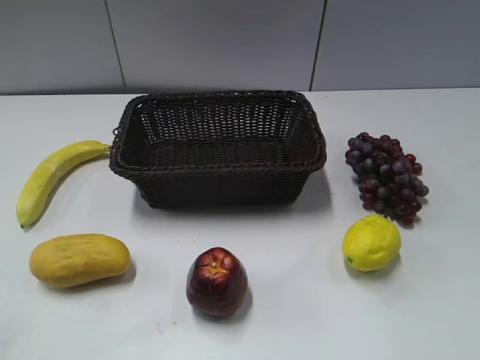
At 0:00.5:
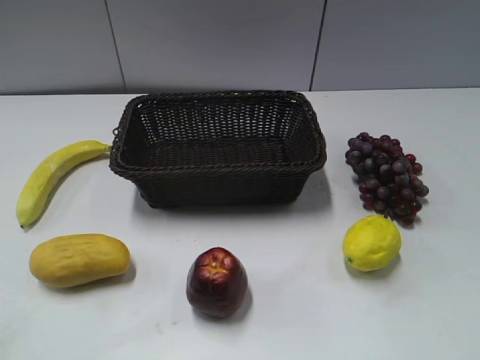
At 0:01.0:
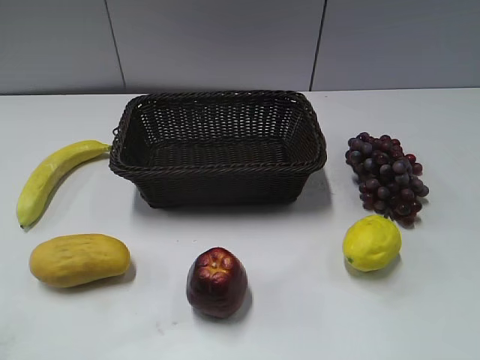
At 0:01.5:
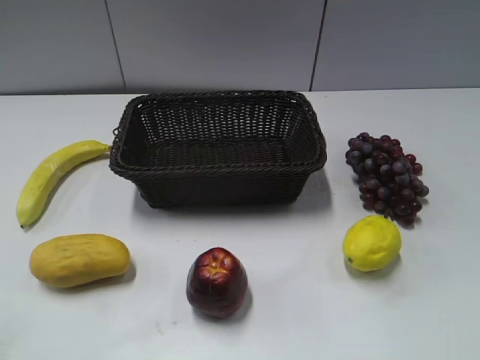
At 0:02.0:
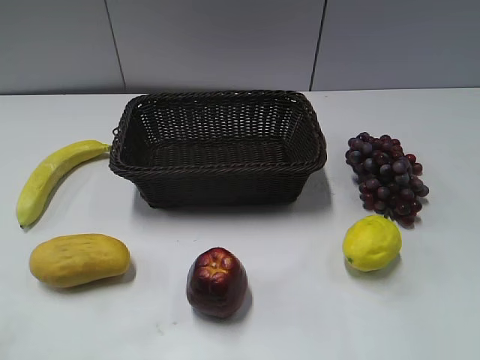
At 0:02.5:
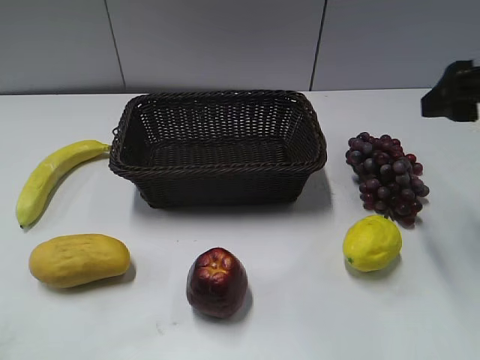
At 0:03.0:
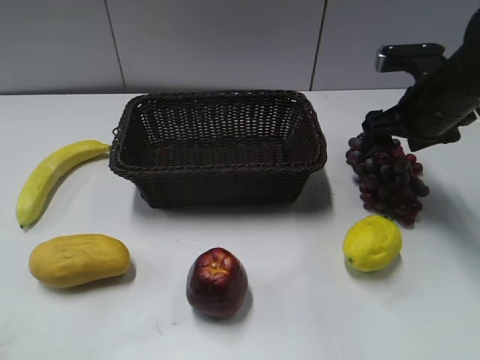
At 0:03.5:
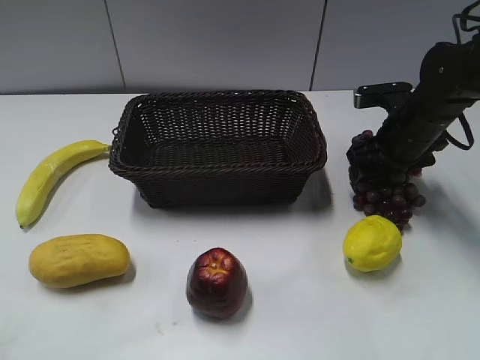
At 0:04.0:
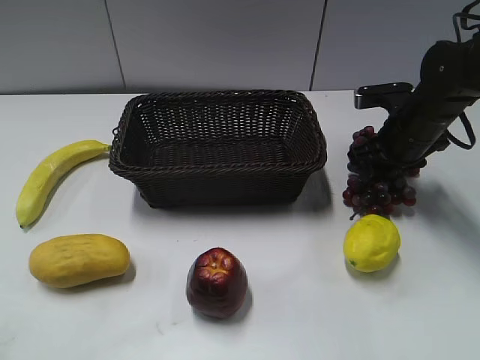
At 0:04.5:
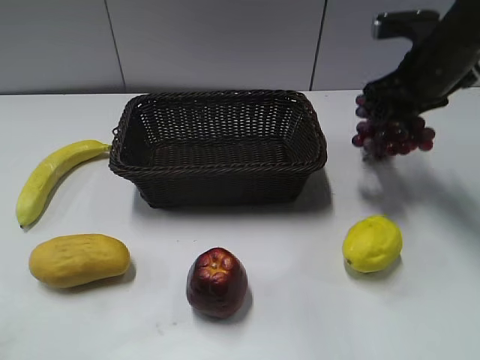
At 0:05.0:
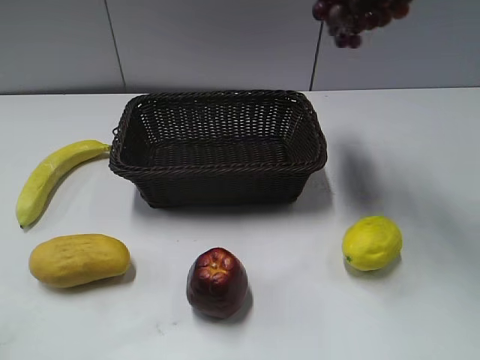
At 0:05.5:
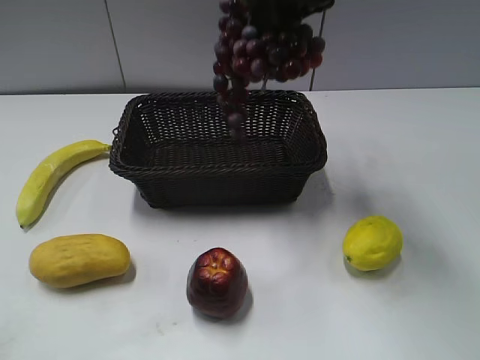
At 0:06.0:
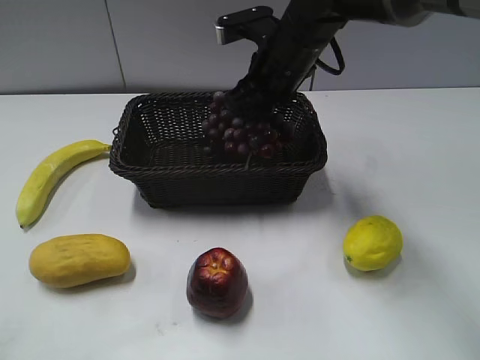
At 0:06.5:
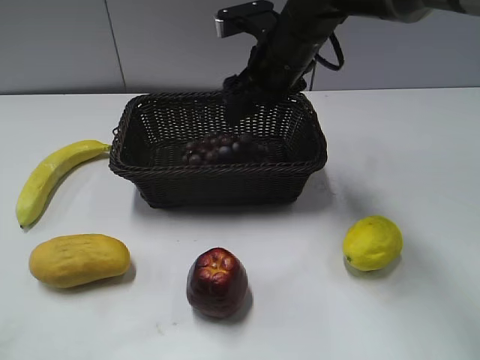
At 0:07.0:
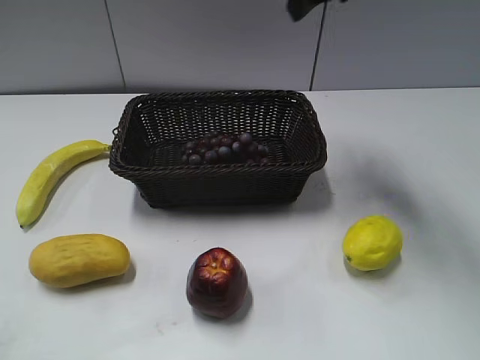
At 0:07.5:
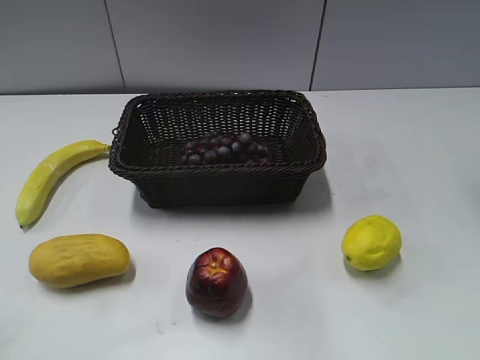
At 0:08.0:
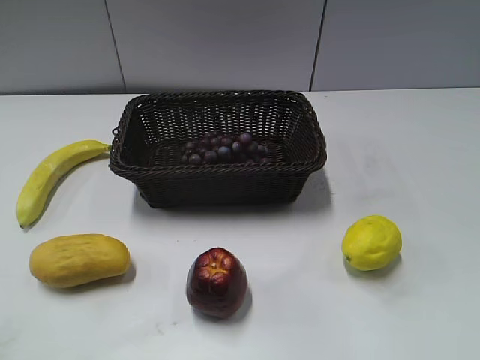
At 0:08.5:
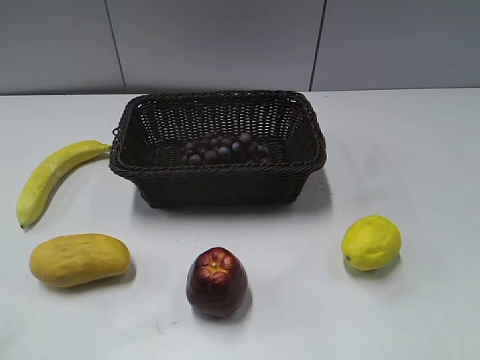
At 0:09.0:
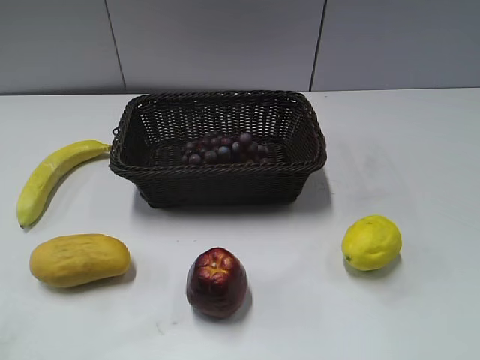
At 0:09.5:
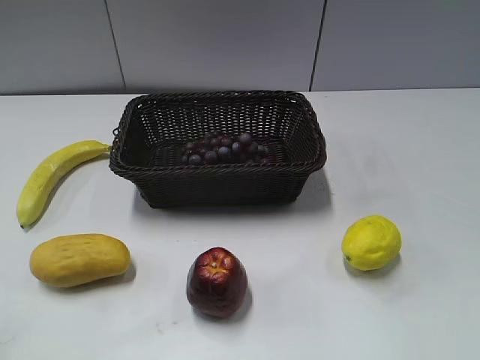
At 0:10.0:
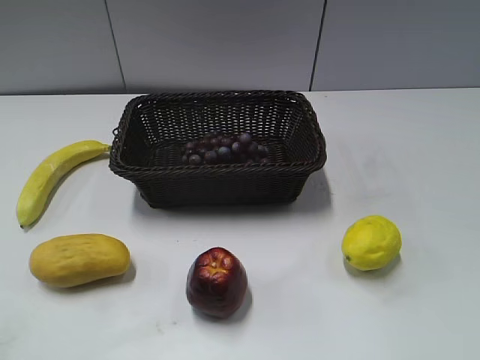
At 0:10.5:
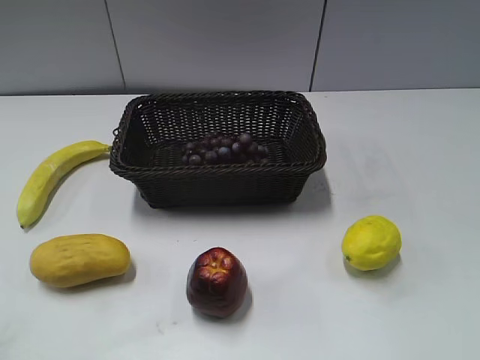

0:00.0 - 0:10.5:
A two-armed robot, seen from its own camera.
Step, 0:02.5 - 0:03.5: Grasp the grape with right gripper.
Step, 0:04.0 - 0:06.5: Place the grape in the basket with right gripper.
0:02.0 - 0:04.0: The right gripper heads forward and downward, covering about 35 cm, and closes up.
0:04.0 - 0:06.5: The right gripper heads to the left and upward, covering roughly 20 cm, and opens its fingers.
0:06.5 - 0:08.5: The right gripper shifts about 40 cm backward and to the right.

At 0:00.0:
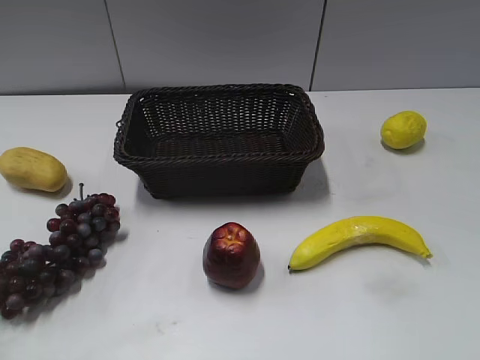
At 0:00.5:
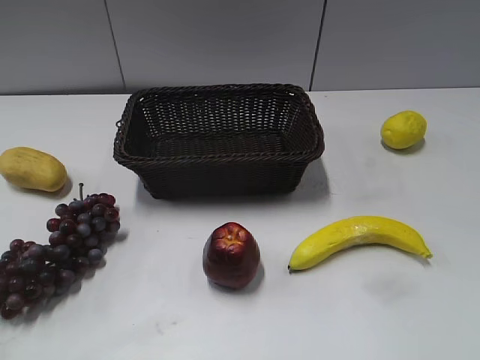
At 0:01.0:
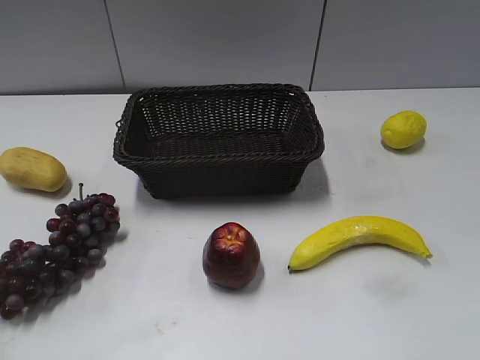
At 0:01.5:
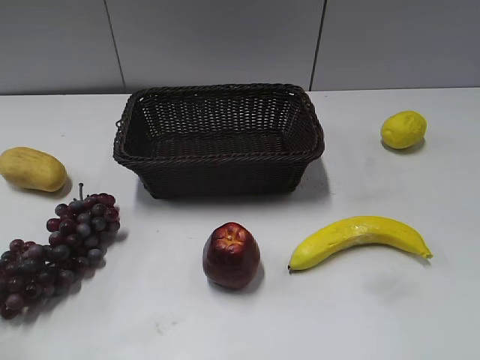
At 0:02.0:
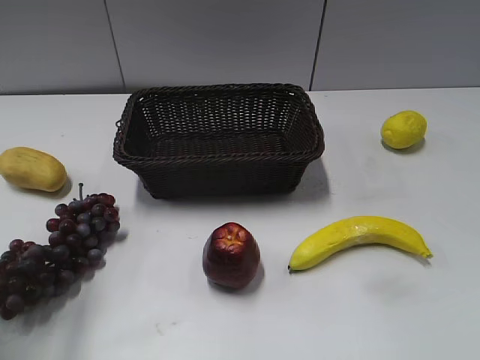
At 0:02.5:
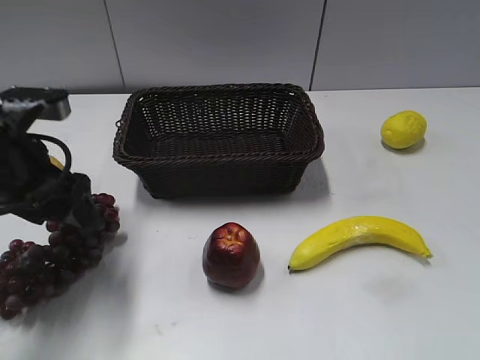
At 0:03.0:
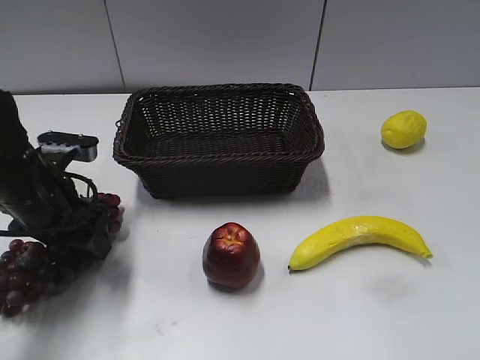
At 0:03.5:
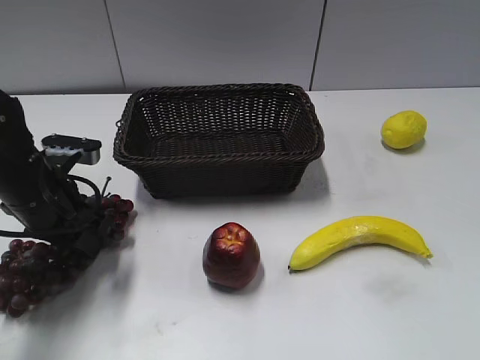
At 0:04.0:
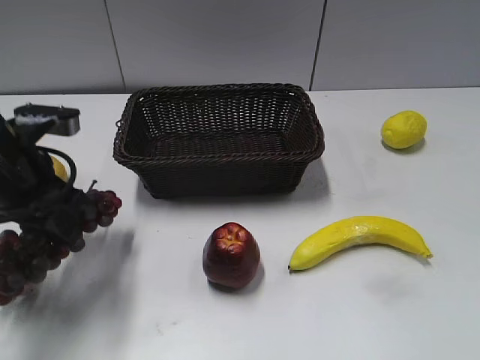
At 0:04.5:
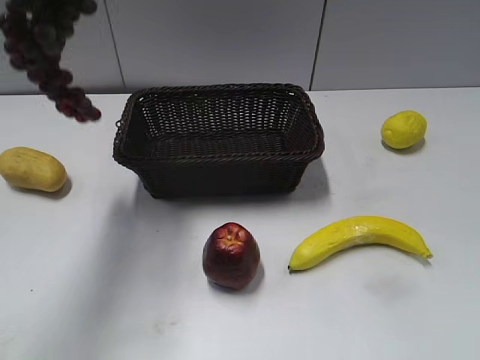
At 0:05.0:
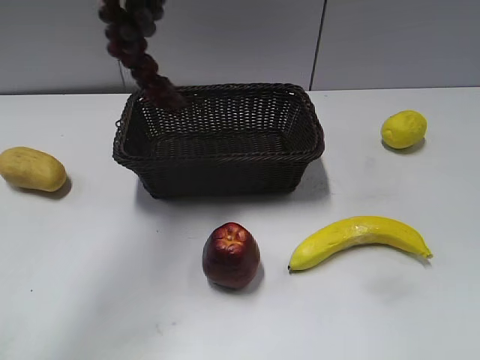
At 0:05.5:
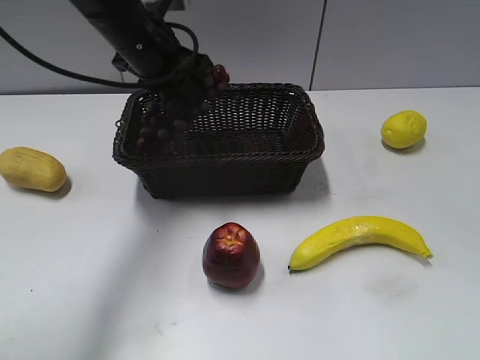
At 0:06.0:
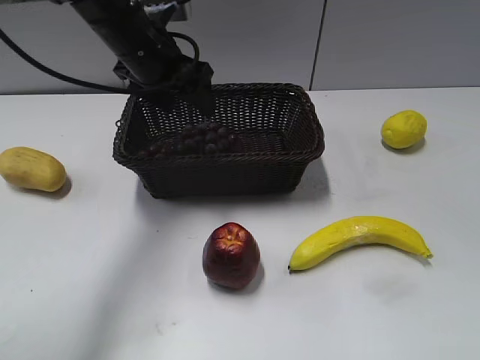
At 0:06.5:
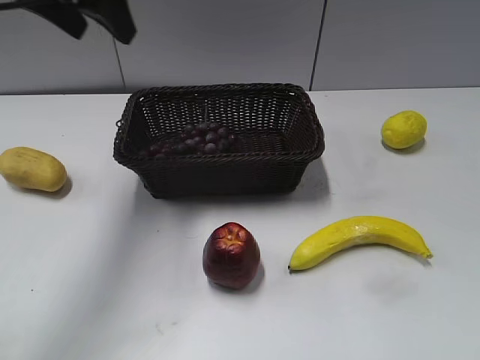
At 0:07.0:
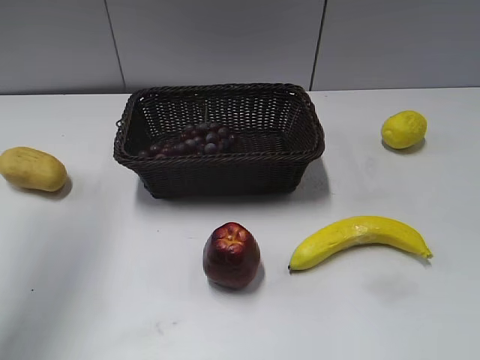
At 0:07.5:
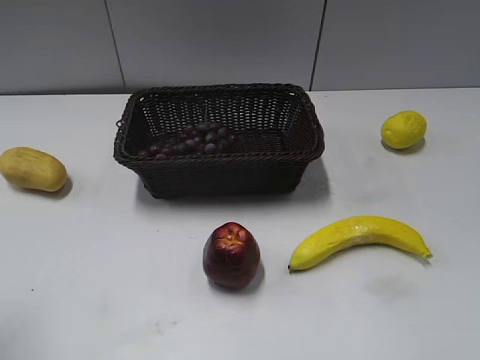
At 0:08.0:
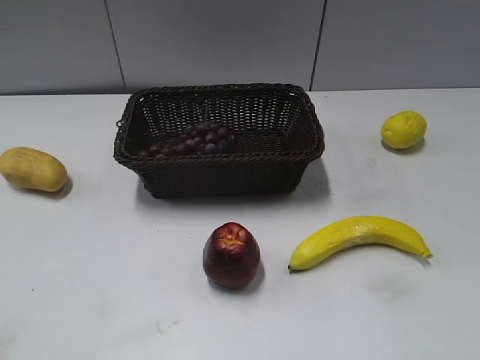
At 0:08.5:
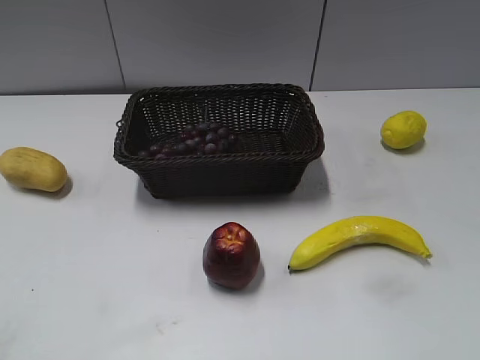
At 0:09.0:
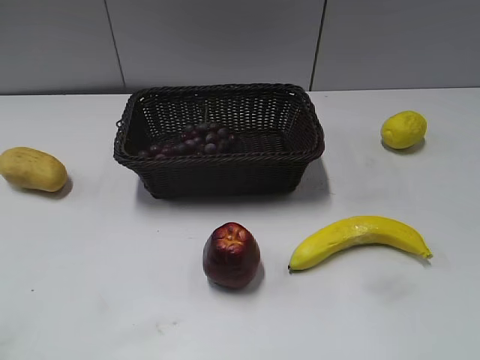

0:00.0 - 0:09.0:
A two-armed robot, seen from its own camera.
Step, 0:02.5 - 0:03.0: Grasp the grape with left gripper.
Step, 0:03.5 - 0:05.5: Place the grape in the basket with left gripper.
0:02.0 - 0:04.5: The left gripper moves forward and to the right, approximately 15 cm, travels downward and back again, roughly 20 cm each way, and closes.
0:04.5 - 0:07.0: The left gripper goes approximately 10 cm to the left, moves some 15 cm downward and comes back, and opens.
0:07.0 - 0:09.0: The left gripper travels backward and downward by approximately 30 cm.

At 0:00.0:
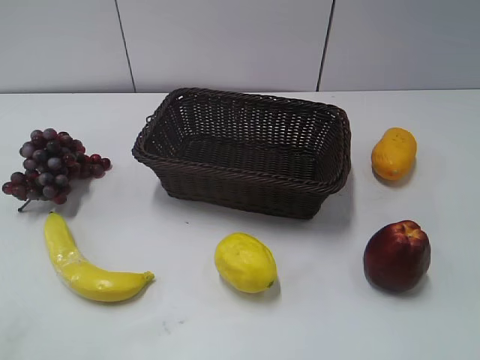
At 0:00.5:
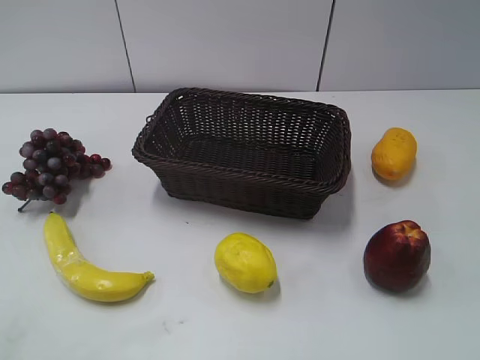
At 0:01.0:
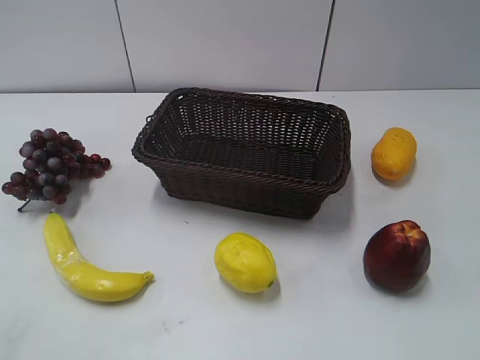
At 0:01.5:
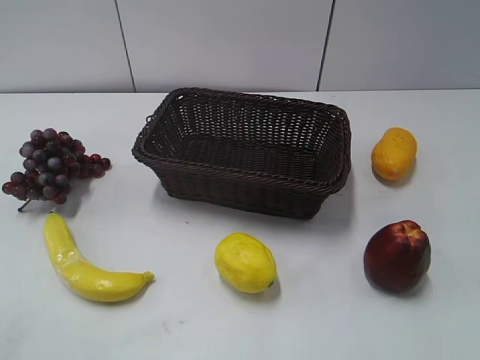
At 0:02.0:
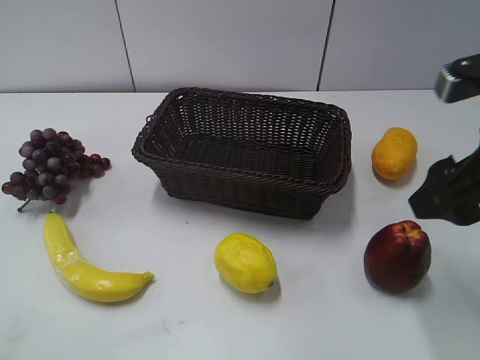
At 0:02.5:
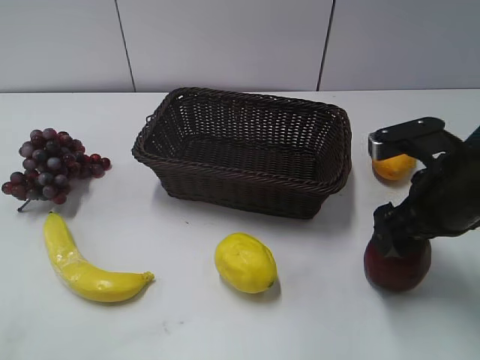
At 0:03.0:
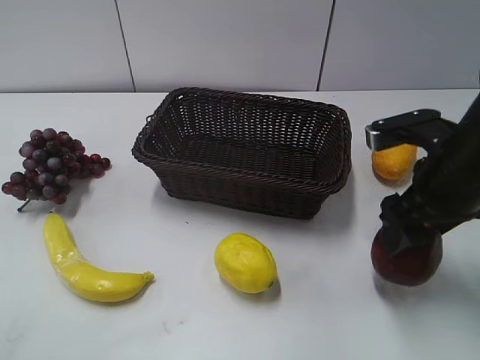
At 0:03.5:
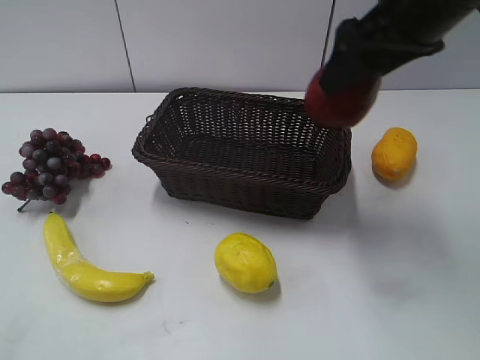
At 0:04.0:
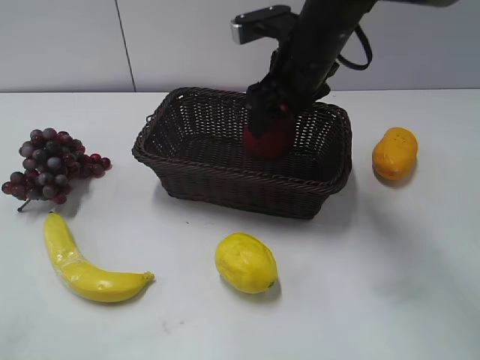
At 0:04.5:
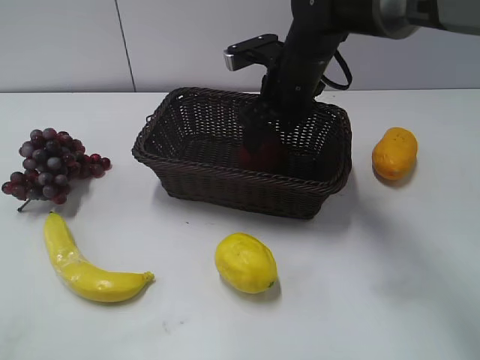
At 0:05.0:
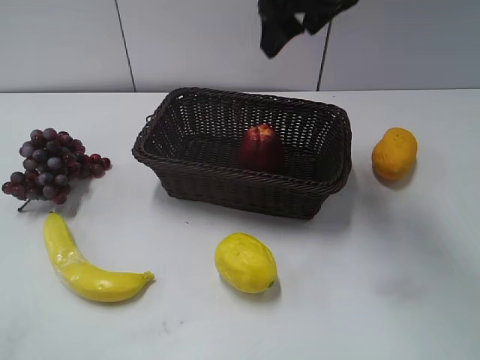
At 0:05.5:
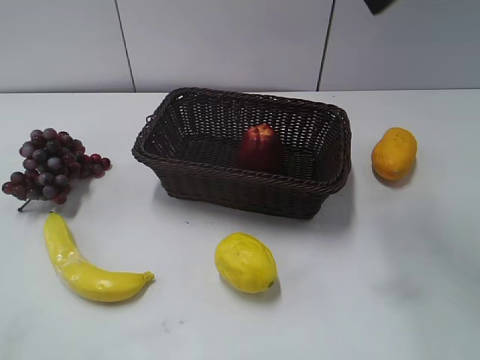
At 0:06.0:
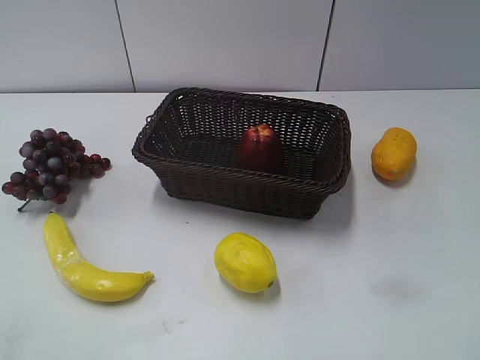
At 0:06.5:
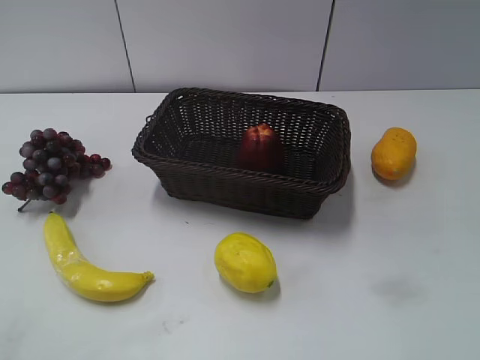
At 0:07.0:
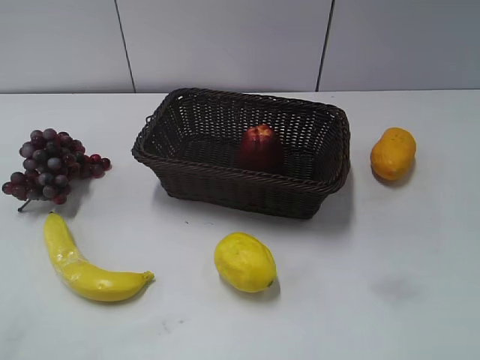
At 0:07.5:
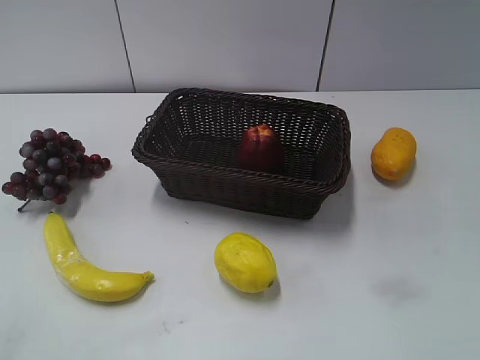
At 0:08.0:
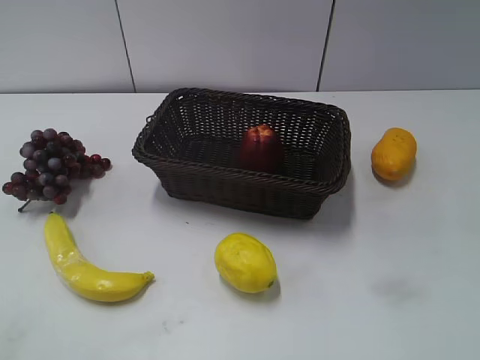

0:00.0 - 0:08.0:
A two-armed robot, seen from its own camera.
Step, 0:02.0 - 0:02.5: Grasp the apple with right gripper.
Step, 0:03.0 - 0:04.0: Place the apple in the basket with right gripper.
0:02.0 - 0:04.0: The right gripper heads forward and to the left, covering some 25 cm.
0:04.0 - 0:06.0: The right gripper shifts approximately 35 cm backward and to the right.
